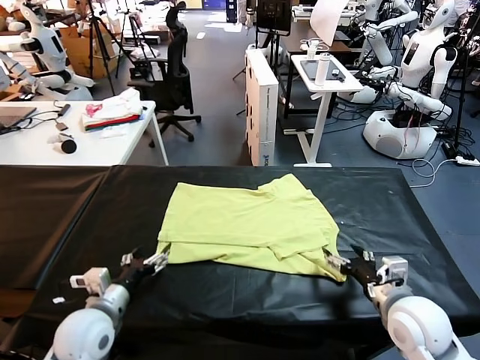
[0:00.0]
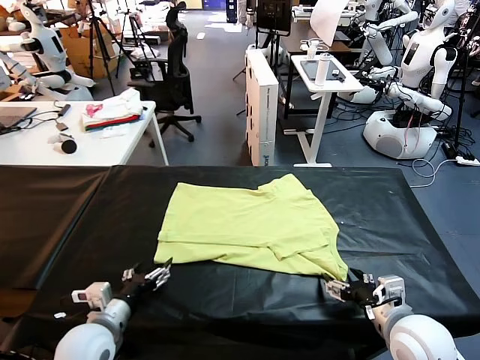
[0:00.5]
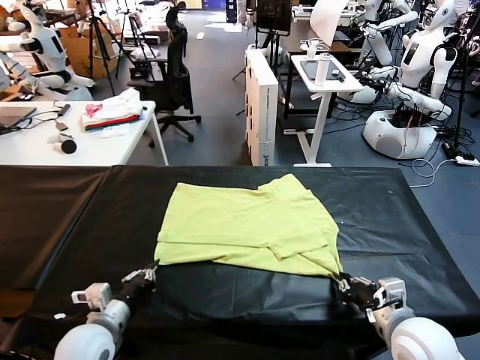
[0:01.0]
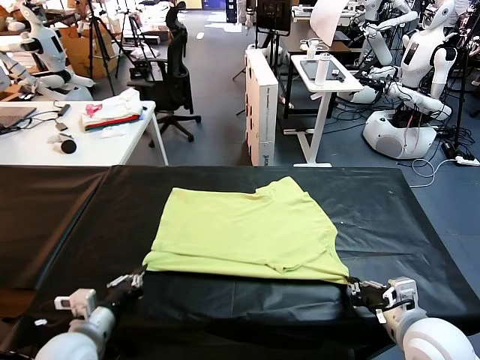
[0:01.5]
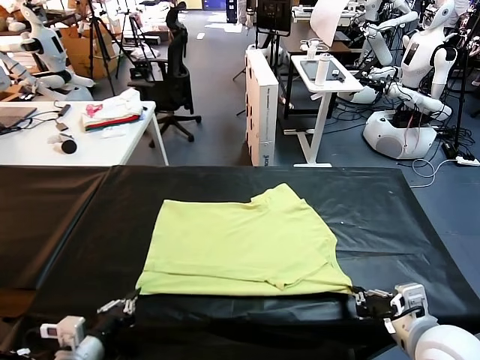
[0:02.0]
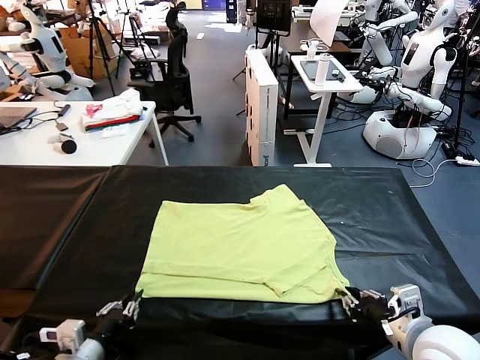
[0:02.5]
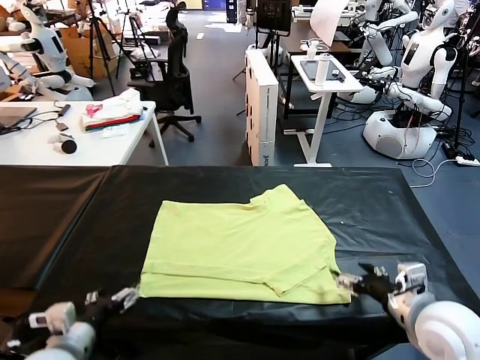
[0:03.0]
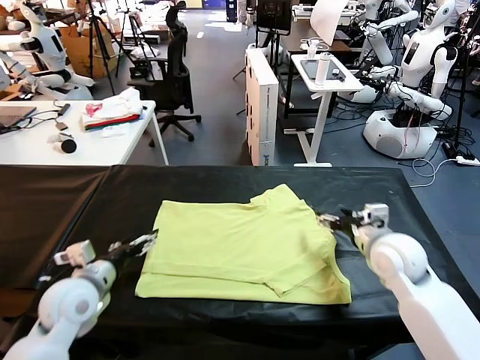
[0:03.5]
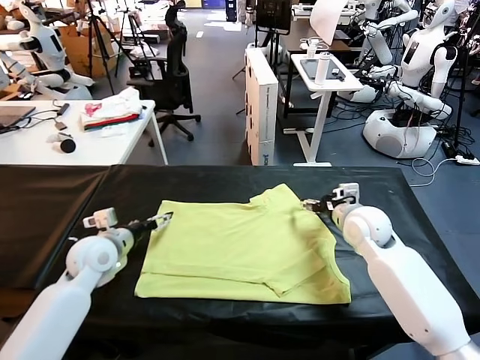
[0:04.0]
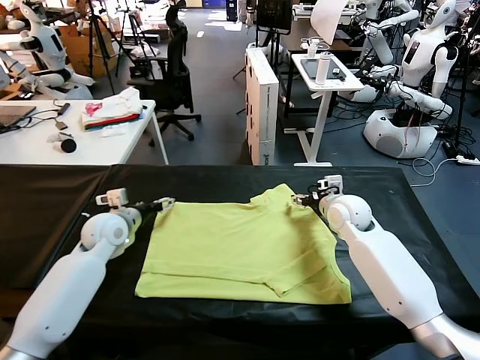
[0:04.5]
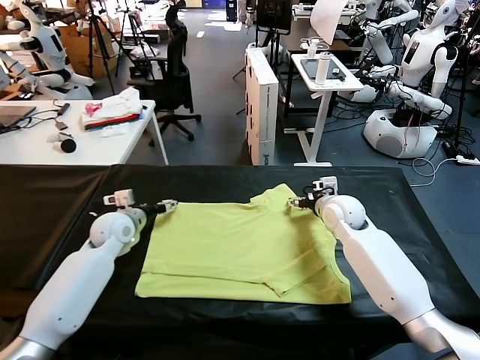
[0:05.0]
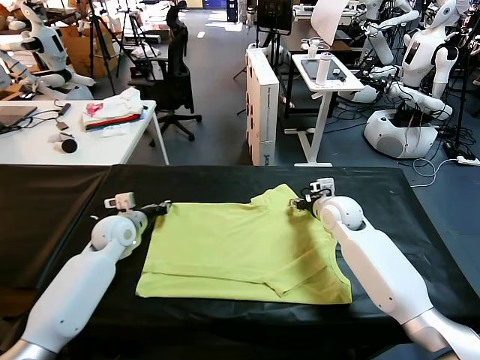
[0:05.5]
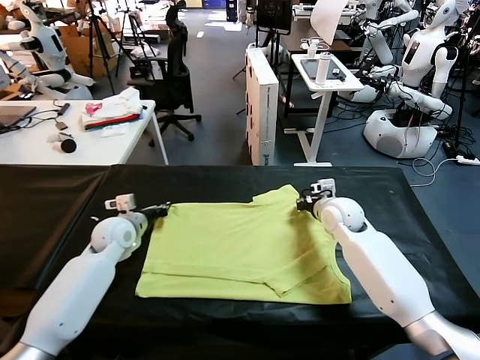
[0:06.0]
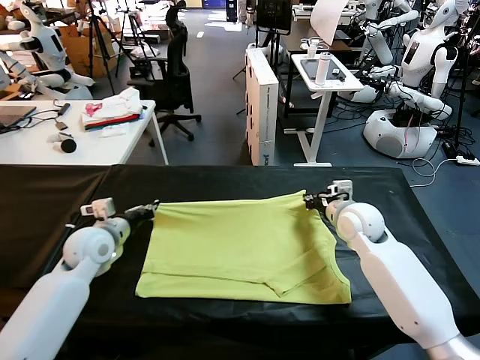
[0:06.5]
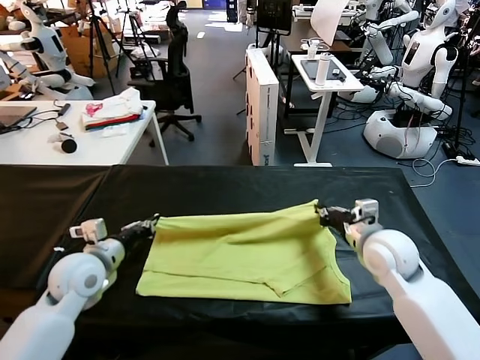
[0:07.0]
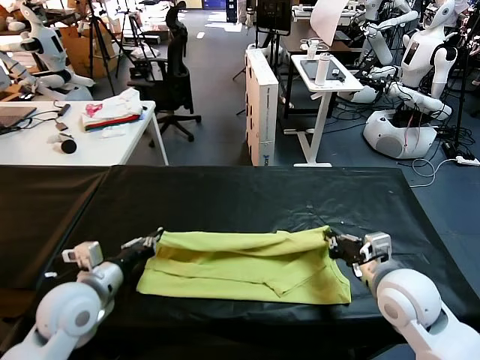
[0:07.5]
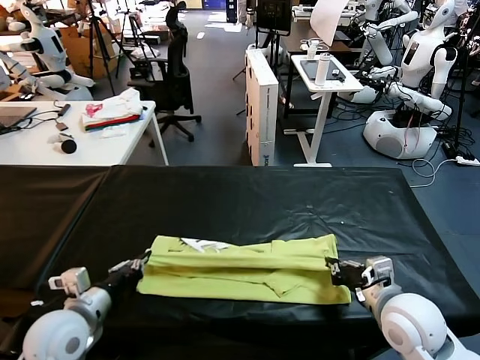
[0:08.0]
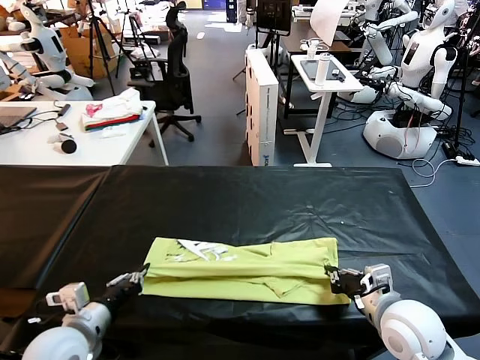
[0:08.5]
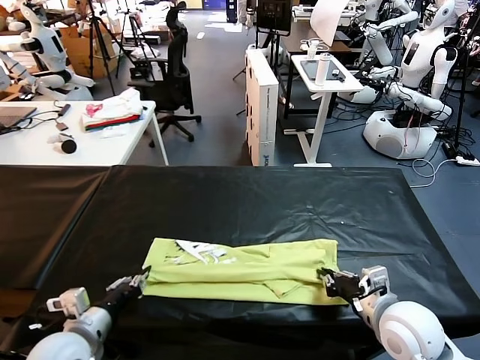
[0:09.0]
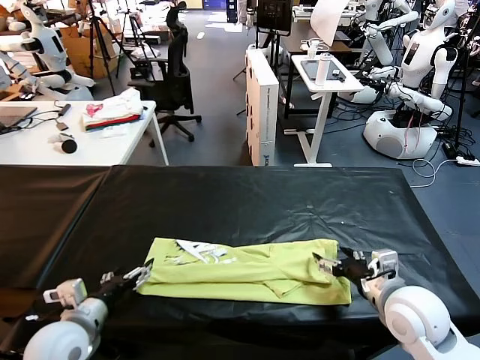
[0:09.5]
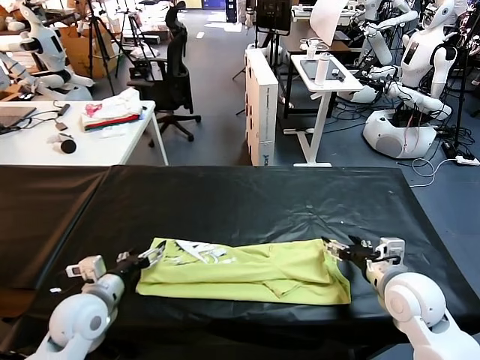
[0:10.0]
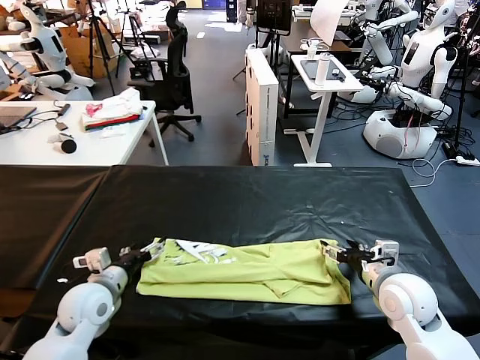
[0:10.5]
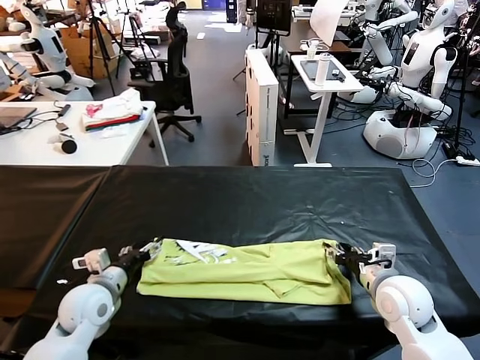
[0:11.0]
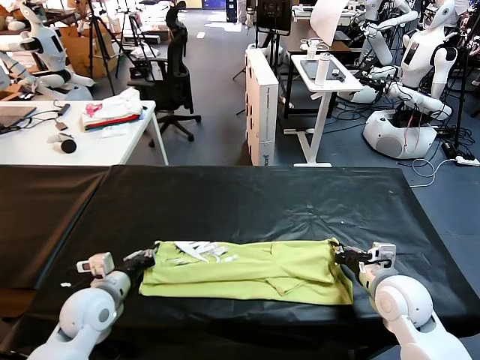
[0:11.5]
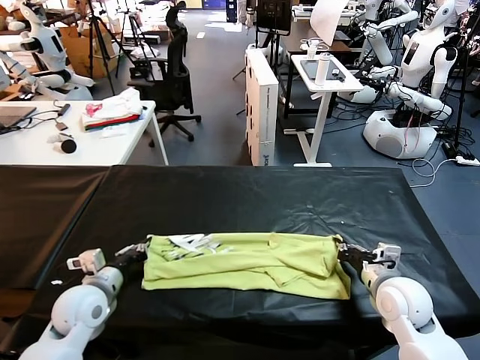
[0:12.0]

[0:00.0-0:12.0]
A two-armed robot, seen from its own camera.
Task of the whole recording: fold and organize the clothes.
Step, 0:00.0 to 0:02.5: Drag the clothes downward with both gripper.
Step, 0:03.0 to 0:06.0: use both grippers simultaneously to clamp the upper edge of the clothing fabric.
Step, 0:06.5 to 0:09.0: use both grippers to drag the upper edge of the fabric backward and fold it over the lower edge.
0:00.0 to 0:02.0: The left gripper heads backward, covering roughly 10 cm, and closes its fingers, while the right gripper shifts by approximately 5 cm, and closes up.
0:02.0 to 0:04.0: Both grippers travel together forward, approximately 25 cm. The left gripper opens its fingers. The right gripper opens up.
0:04.0 to 0:06.0: The right gripper closes its fingers. The left gripper is displaced forward by about 5 cm, and closes up.
0:06.0 to 0:08.0: Both grippers move backward, approximately 25 cm.
0:08.0 to 0:10.0: The right gripper travels forward by approximately 5 cm, and opens up. The left gripper changes place by some 5 cm, and opens.
0:10.0 to 0:12.0: The right gripper closes its fingers. Meanwhile the left gripper closes its fingers.

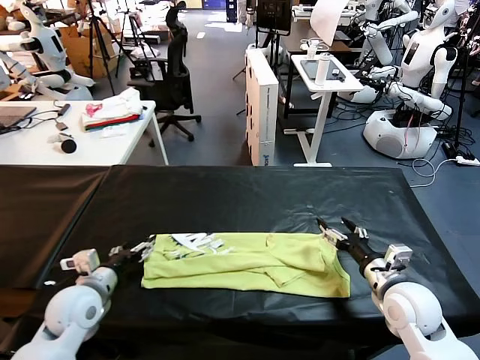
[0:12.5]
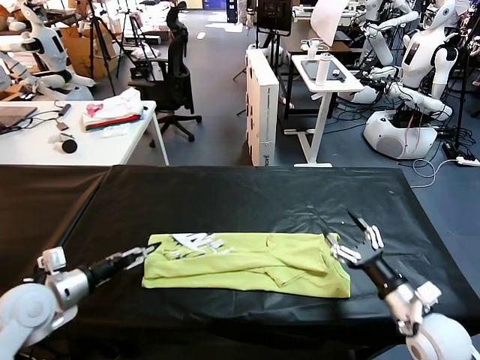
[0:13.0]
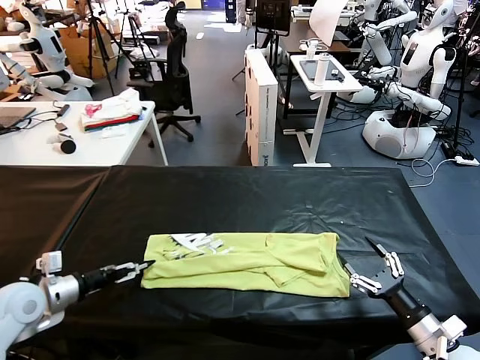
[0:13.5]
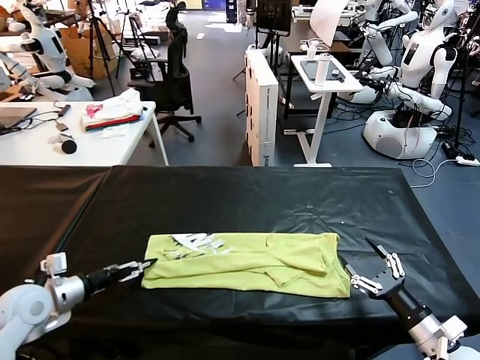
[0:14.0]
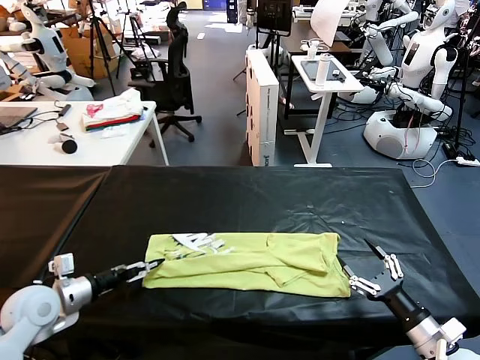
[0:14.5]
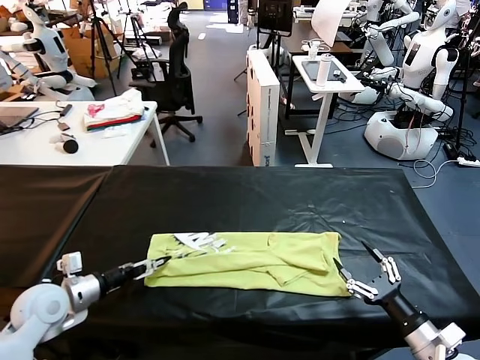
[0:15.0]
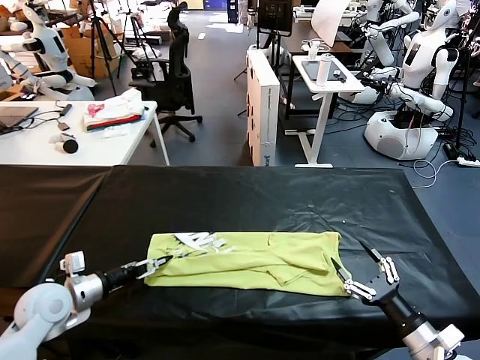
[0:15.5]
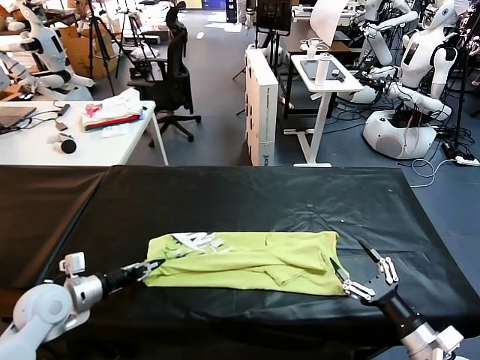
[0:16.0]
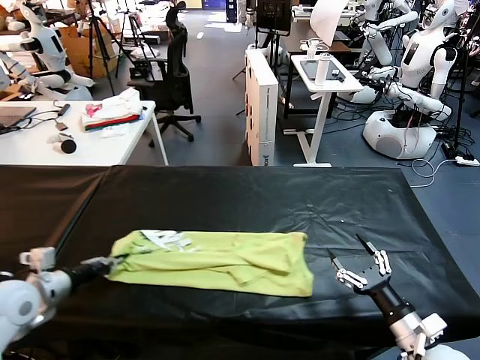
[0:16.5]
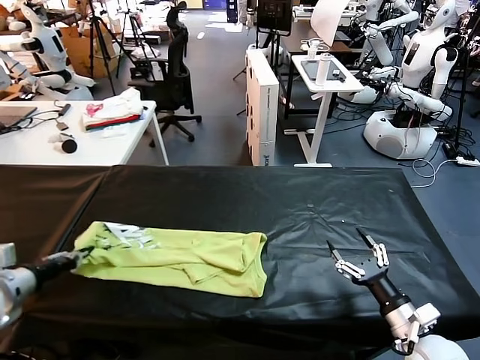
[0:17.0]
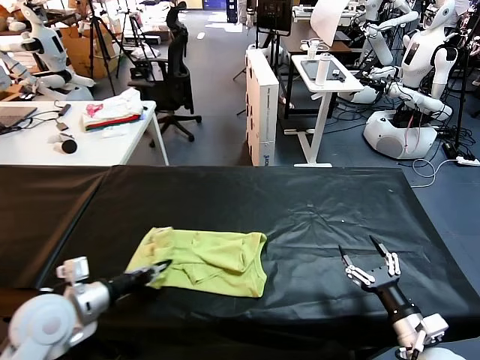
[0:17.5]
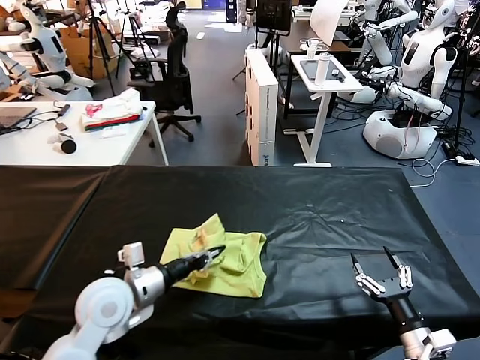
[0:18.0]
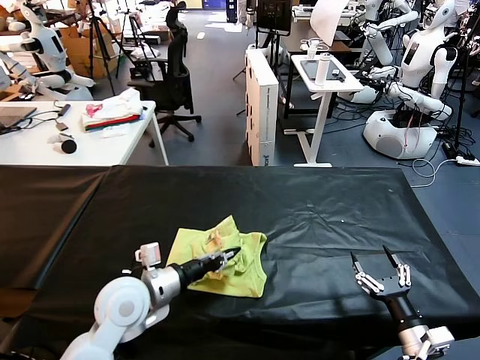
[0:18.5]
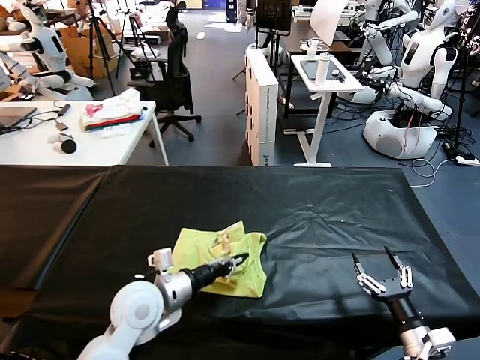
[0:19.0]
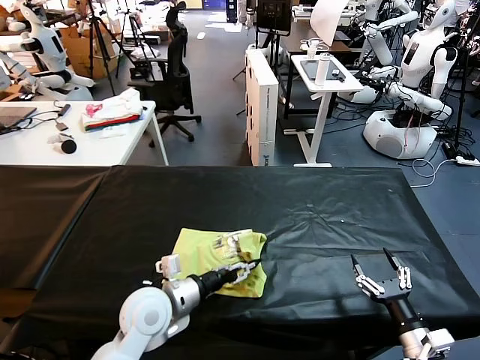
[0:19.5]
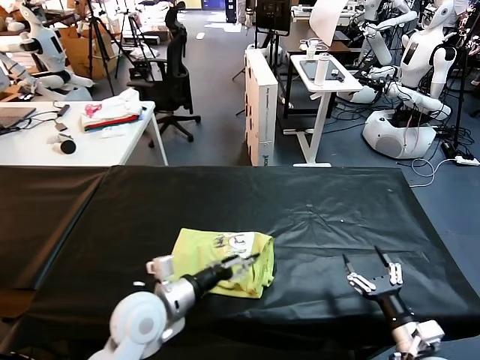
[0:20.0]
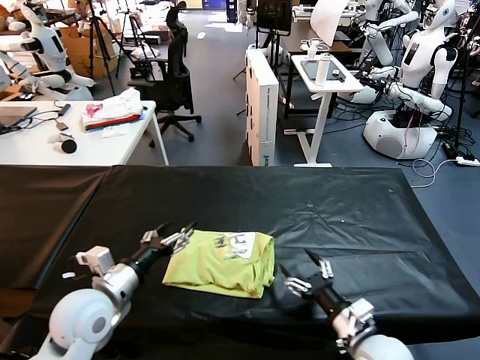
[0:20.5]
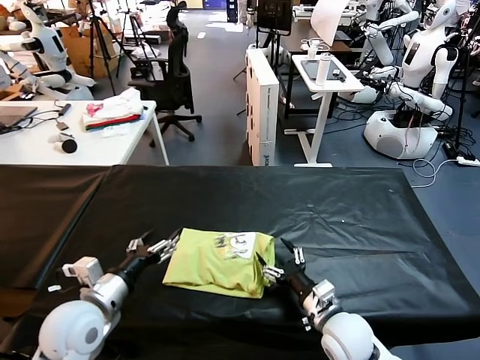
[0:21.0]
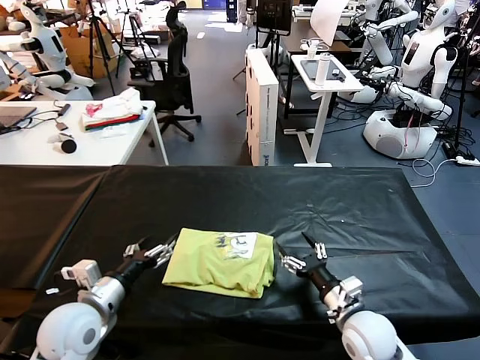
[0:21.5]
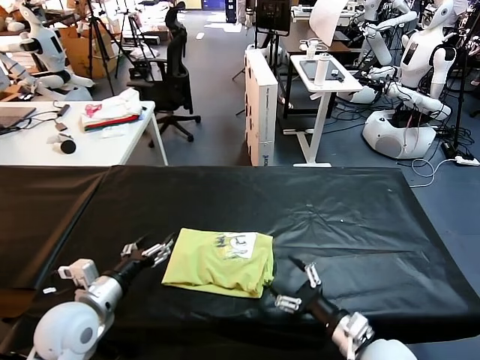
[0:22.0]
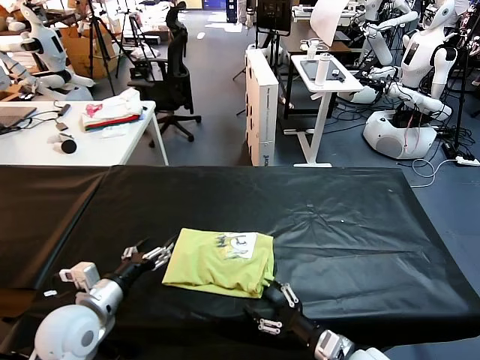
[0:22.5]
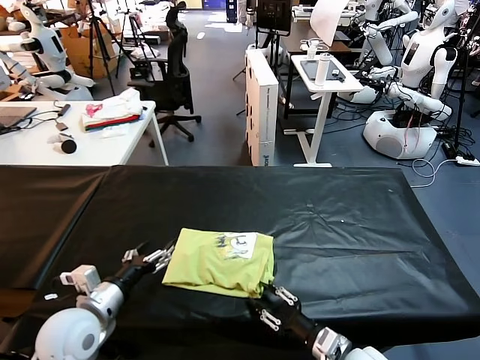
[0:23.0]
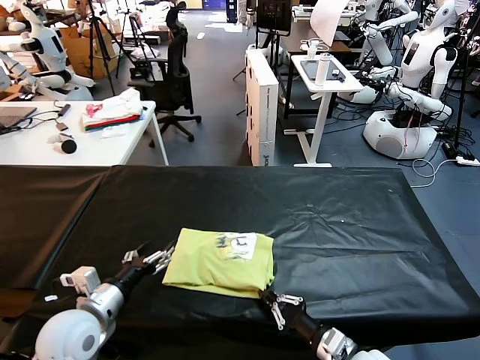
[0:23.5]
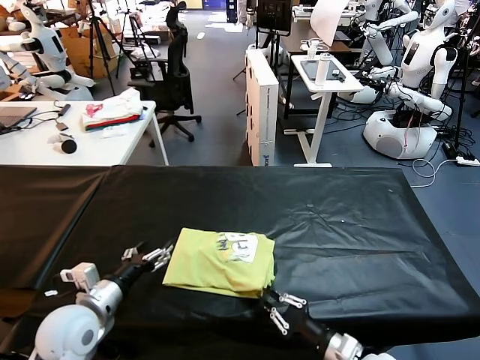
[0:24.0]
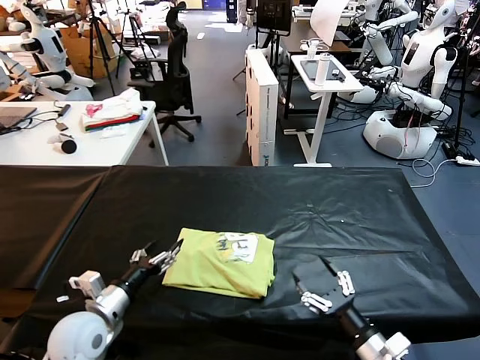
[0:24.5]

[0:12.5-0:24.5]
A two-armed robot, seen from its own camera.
Task of the whole recording: fold and organize the clothes.
Step, 0:12.5 to 0:15.5: use the left gripper to clamp the left edge of the fabric.
Step, 0:16.0 to 0:19.5: use the left gripper to drag the left edge of the fabric to the left and folds it over the right edge.
0:12.5 to 0:14.5: The right gripper travels backward and to the right by roughly 10 cm. The left gripper goes about 10 cm to the left.
0:14.5 to 0:16.5: The left gripper moves approximately 5 cm, and closes.
0:16.5 to 0:18.5: The left gripper moves to the right, some 20 cm.
0:18.5 to 0:20.5: The right gripper moves to the left and forward, roughly 15 cm, while the left gripper heads to the left, covering about 5 cm, and opens up.
0:22.5 to 0:24.5: The right gripper moves to the right, roughly 5 cm, and closes, then reopens.

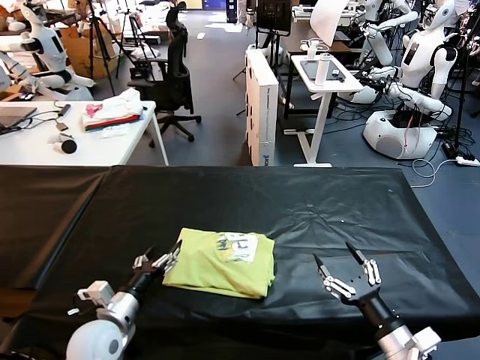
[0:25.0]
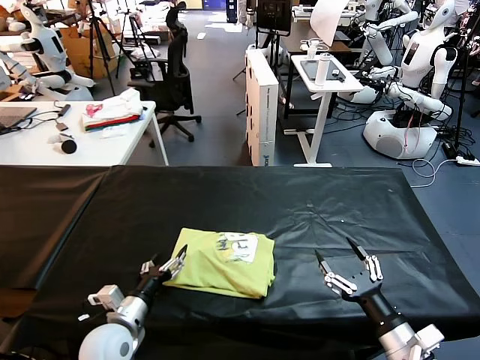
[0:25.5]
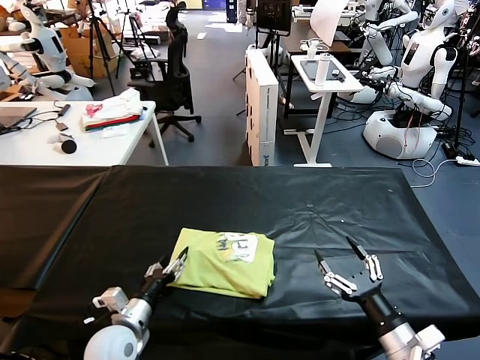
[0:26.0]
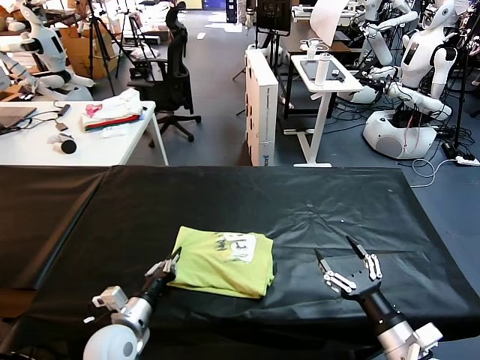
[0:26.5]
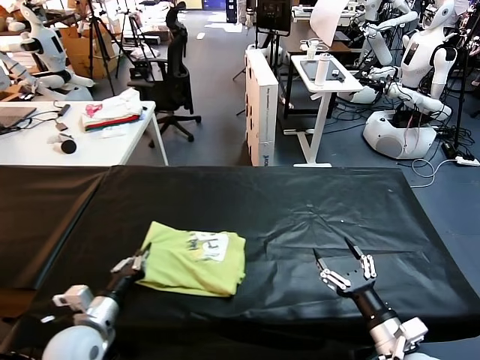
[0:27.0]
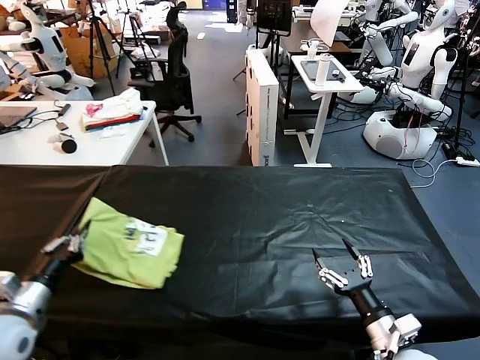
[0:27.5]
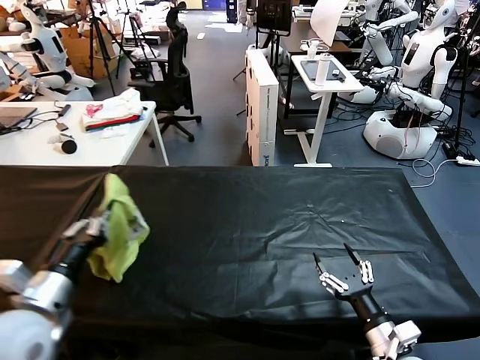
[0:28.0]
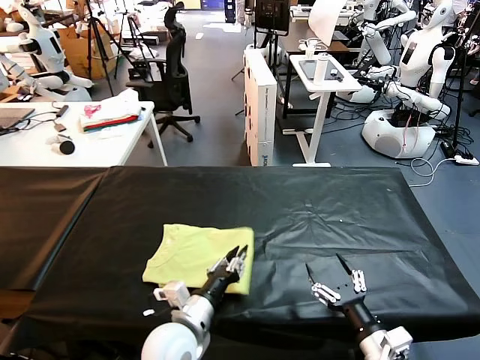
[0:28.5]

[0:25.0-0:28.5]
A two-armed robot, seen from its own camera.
Task of the whole recording: fold and organize the clothes.
0:25.0 to 0:27.0: The left gripper closes.
0:27.0 to 0:28.5: The left gripper shifts about 20 cm to the right.
